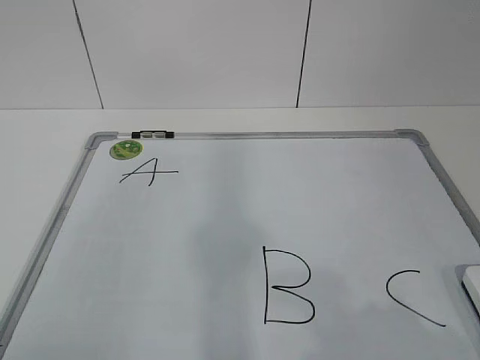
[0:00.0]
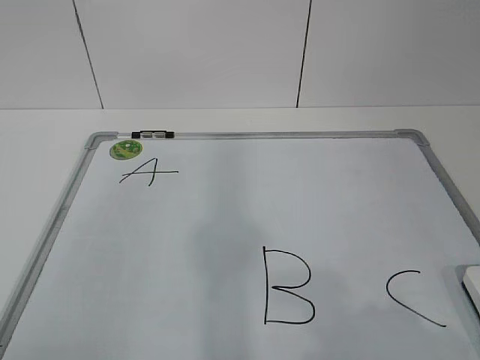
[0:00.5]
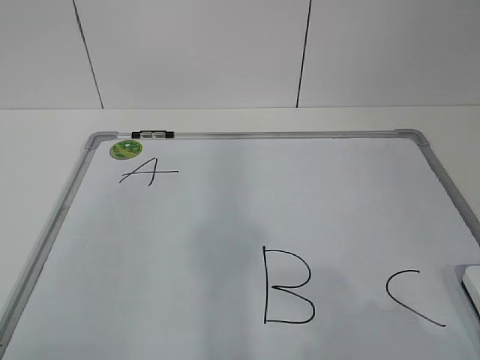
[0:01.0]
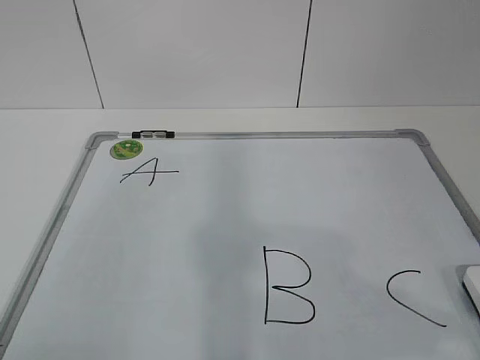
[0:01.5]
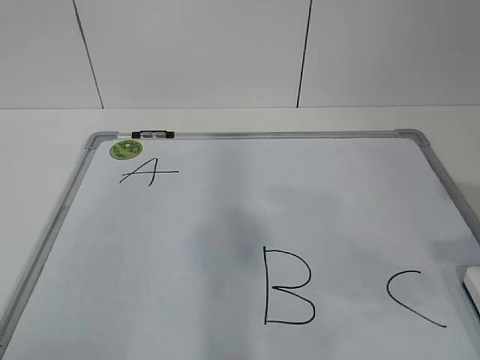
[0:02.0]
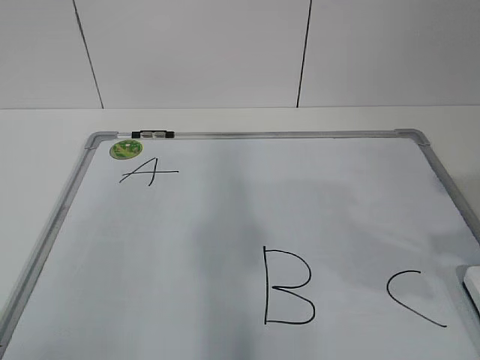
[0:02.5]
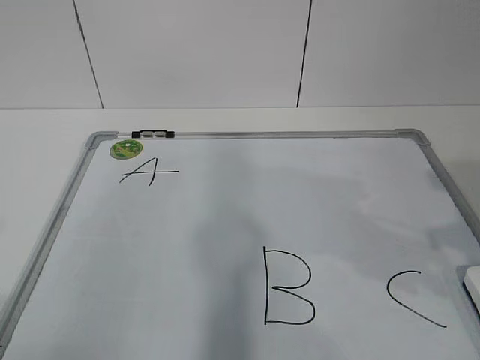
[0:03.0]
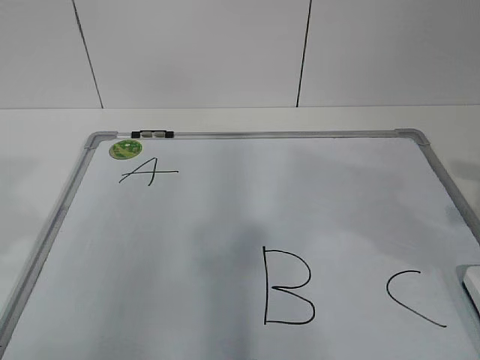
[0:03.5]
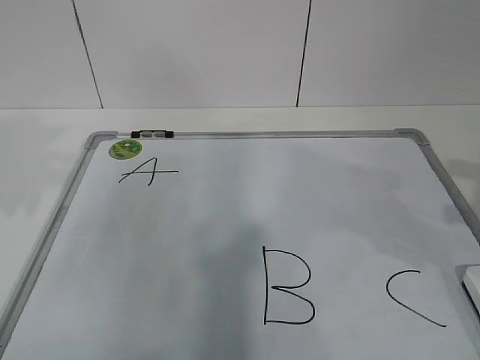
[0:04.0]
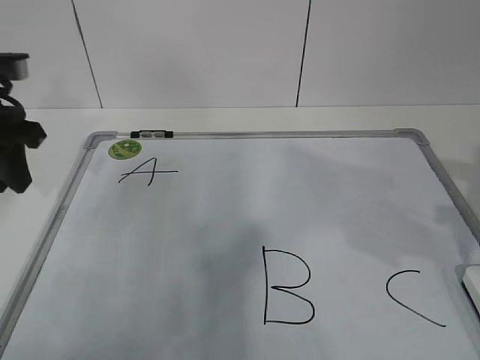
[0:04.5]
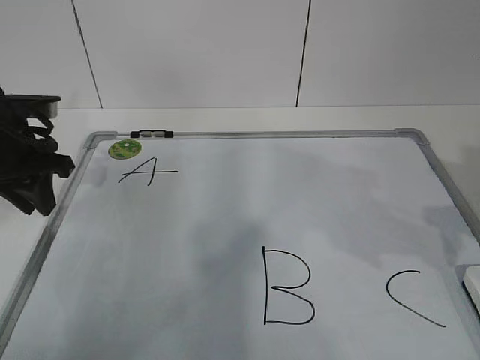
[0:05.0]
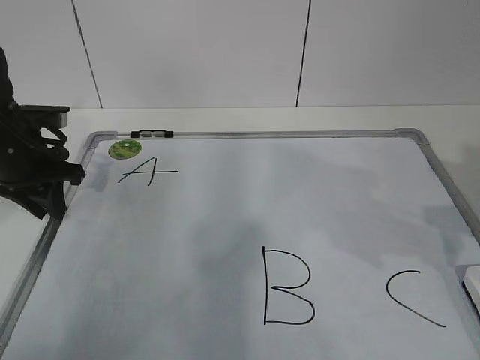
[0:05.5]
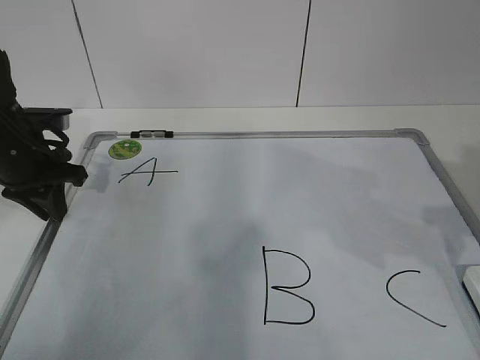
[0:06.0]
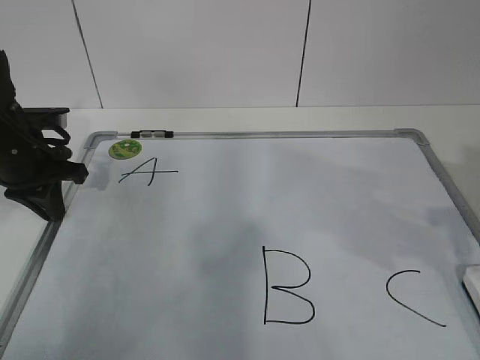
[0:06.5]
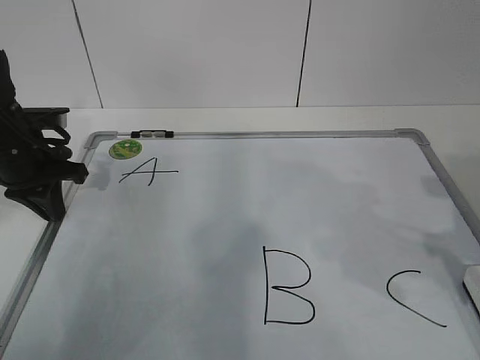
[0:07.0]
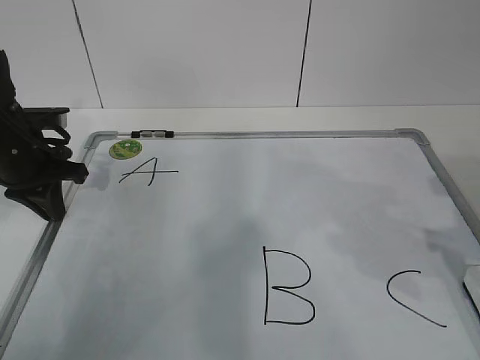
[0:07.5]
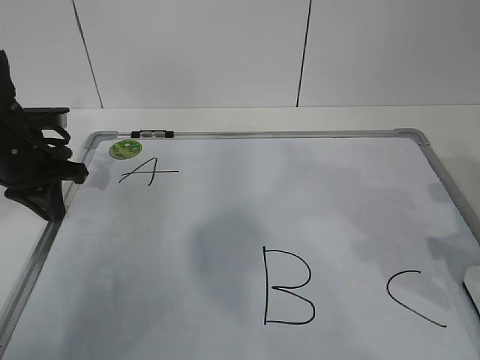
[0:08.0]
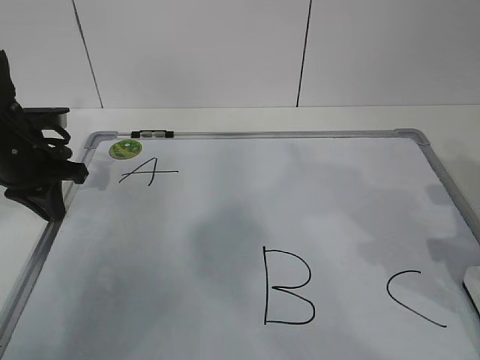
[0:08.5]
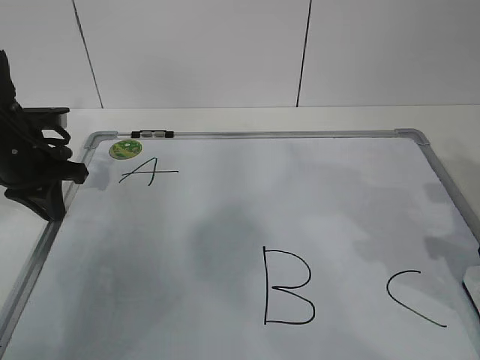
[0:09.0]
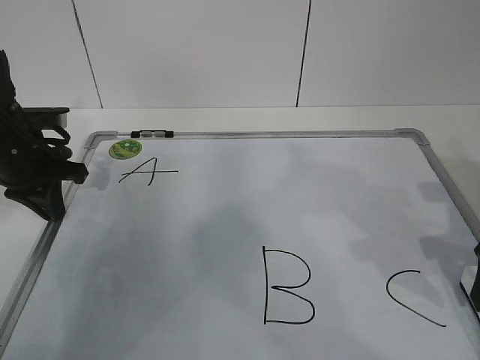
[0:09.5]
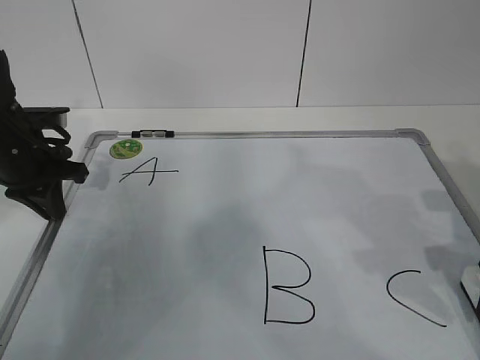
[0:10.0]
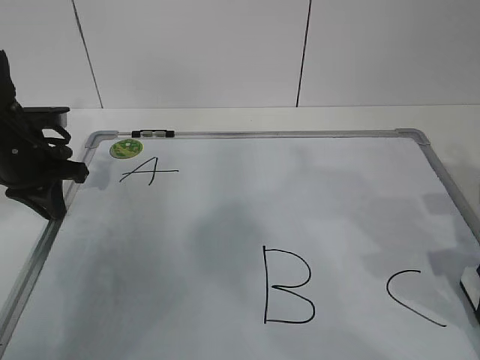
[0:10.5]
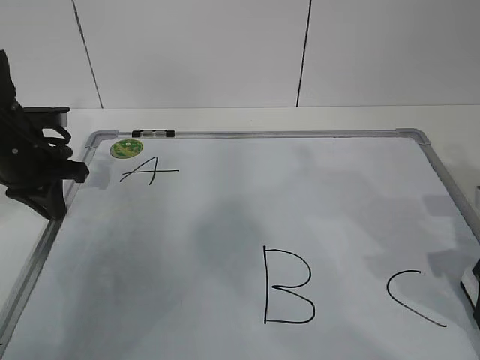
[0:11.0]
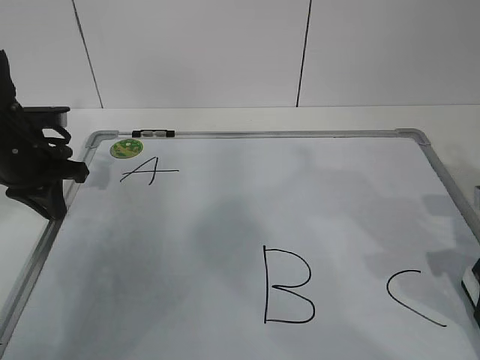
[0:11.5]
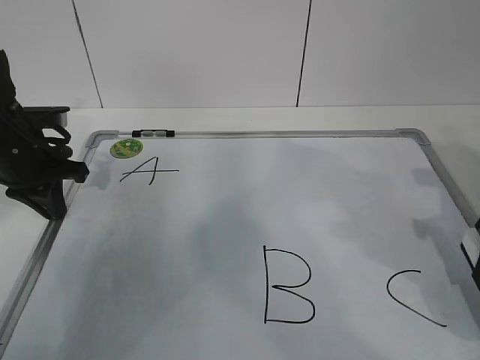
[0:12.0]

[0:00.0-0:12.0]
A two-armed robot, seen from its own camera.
Task of the whole recording: pick up the eraser on the blackboard and erase the letter "B".
Step, 0:00.0 to 0:05.0: Hold the drawing board steady with your left hand.
0:02.0 to 0:04.0: The left gripper heads forward, covering about 25 cm; the right gripper heads forward and to the right, covering approximately 10 cm.
0:04.0 to 0:06.0: The left gripper moves downward and forward, roughly 20 cm.
0:06.0 to 0:08.0: The left gripper closes, while the right gripper shifts some 5 cm downward.
0:10.0 to 0:12.0: The grippers stay close to where they were, moving slightly.

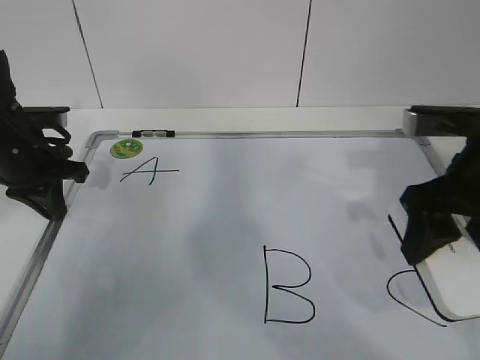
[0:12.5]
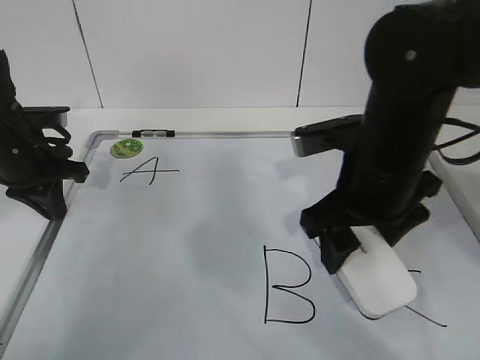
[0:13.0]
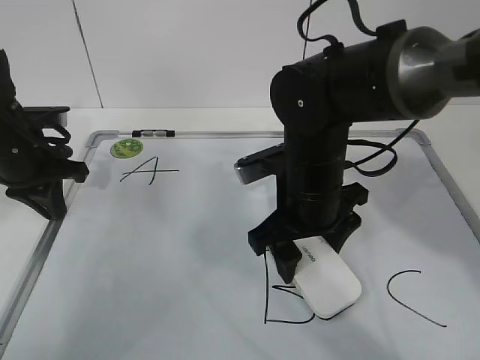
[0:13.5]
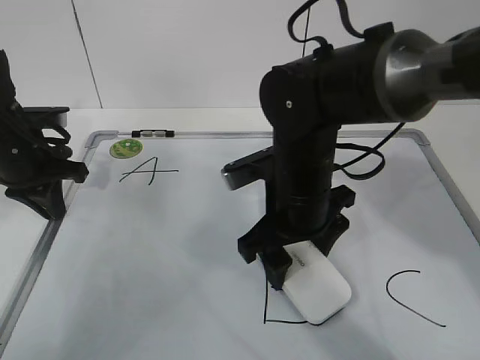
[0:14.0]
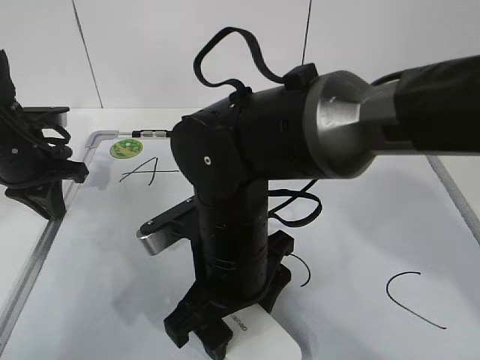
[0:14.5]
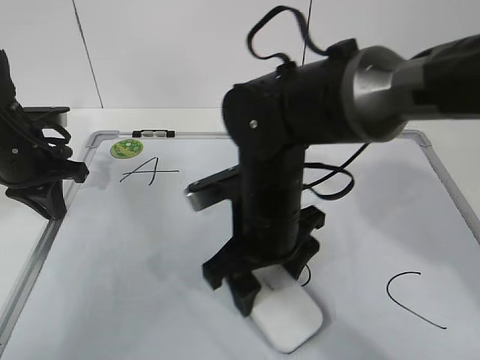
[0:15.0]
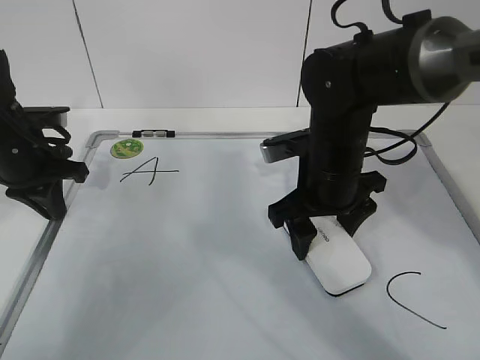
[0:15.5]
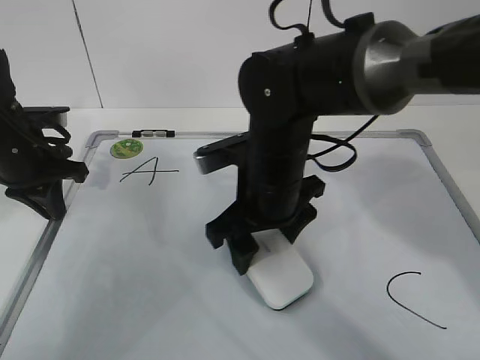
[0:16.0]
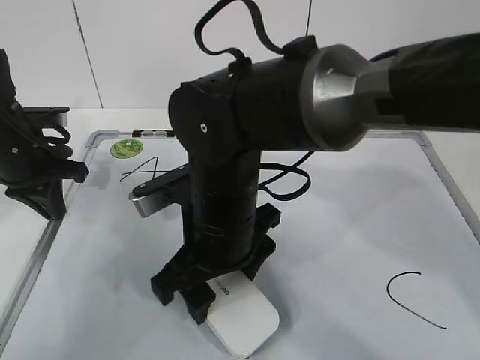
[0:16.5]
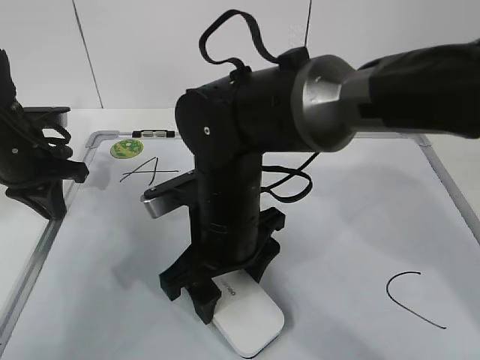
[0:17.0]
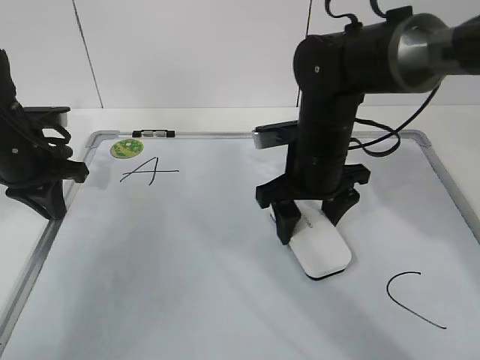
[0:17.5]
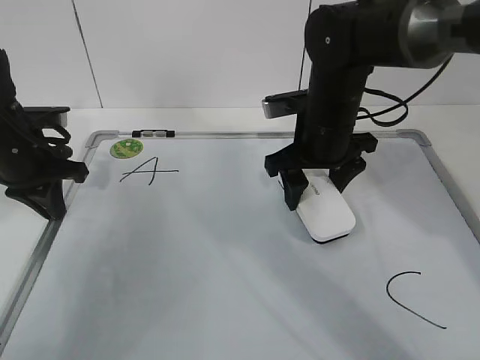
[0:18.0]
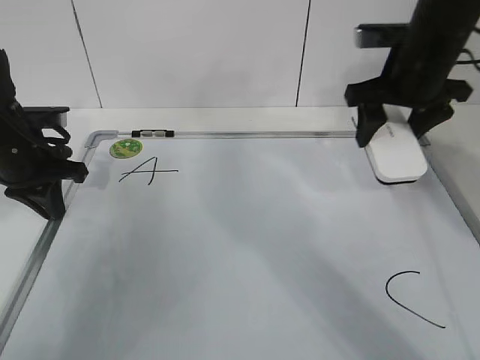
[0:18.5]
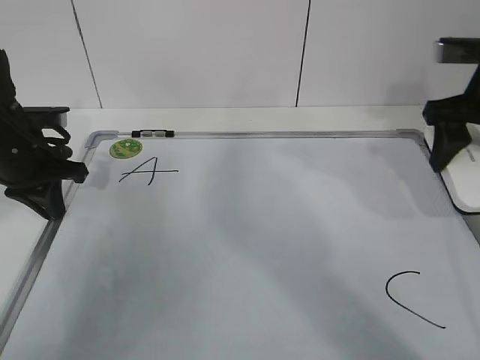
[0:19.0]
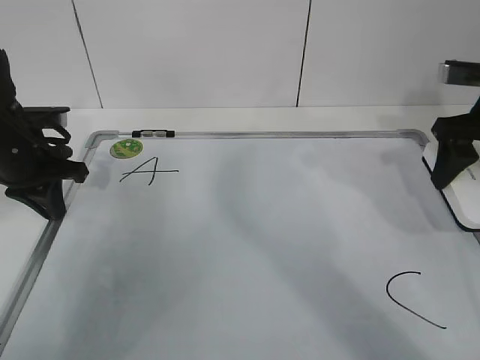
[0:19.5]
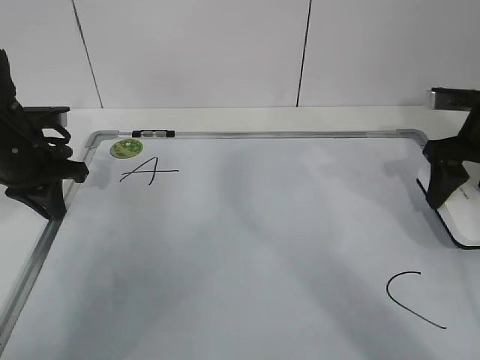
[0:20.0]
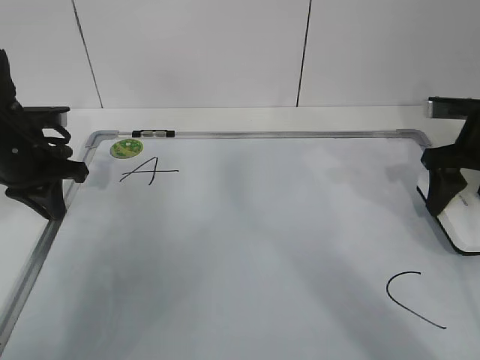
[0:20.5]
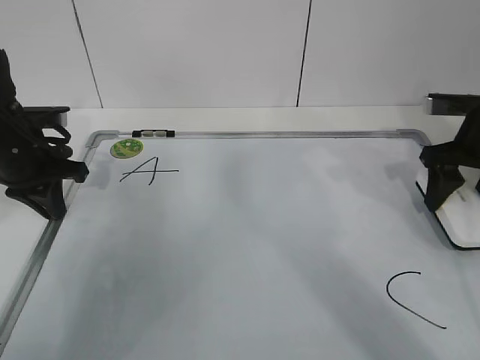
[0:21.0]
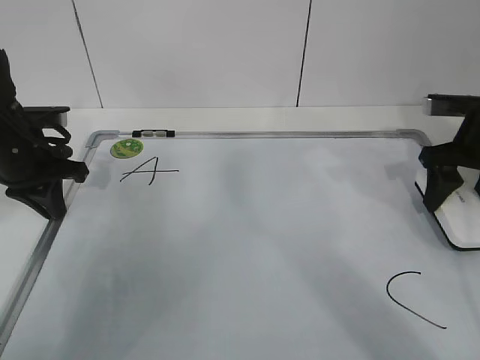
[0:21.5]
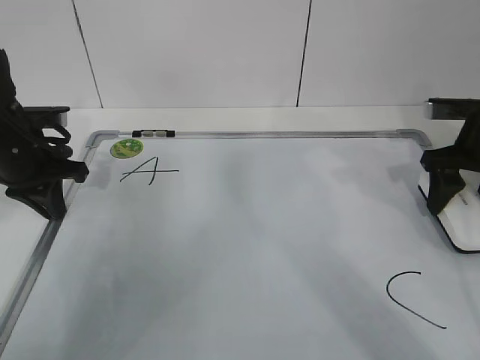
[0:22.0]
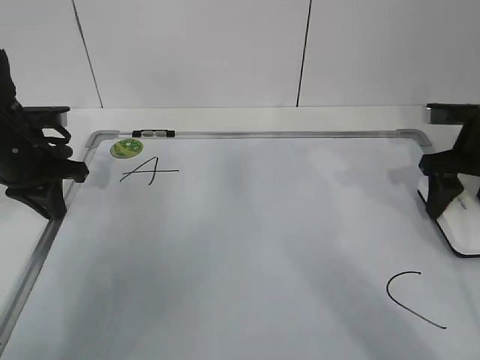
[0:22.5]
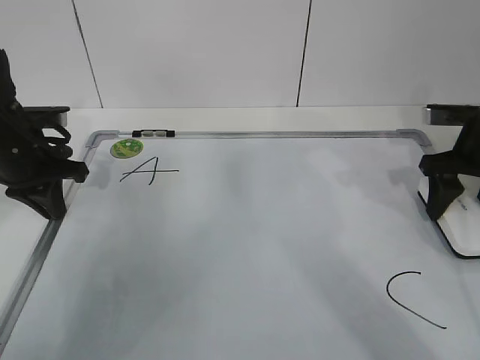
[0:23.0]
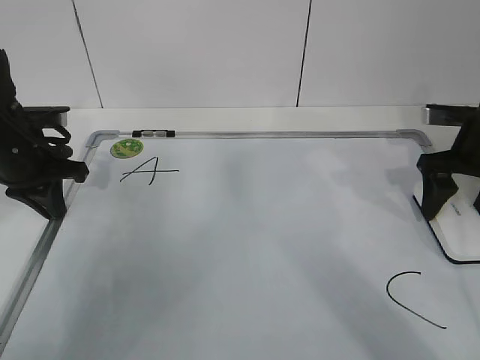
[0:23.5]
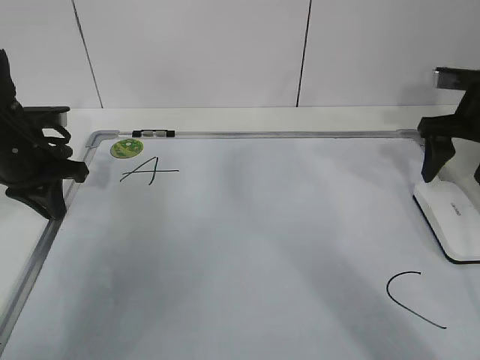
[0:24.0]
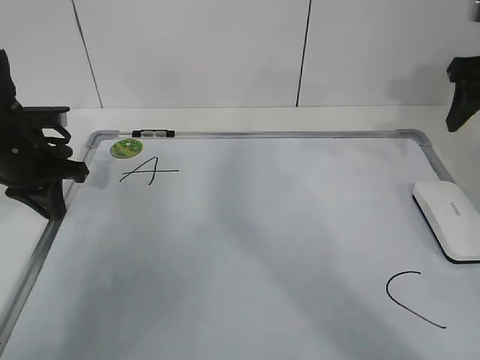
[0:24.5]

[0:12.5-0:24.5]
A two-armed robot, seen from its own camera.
Task of the whole recording: pick up the eraser on the blackboard and erase the letter "B".
Step, 0:12.5 to 0:14.5: Erase the letter B with your right hand.
Step, 0:15.0 to 0:19.5: Put down the eraser with your right hand.
0:12.5 to 0:14.5: The right gripper moves to the left, about 25 cm.
0:14.5 to 0:16.5: The right gripper reaches about 10 cm to the right, then returns.
0:16.5 to 0:18.5: The right gripper travels to the right and forward by some 25 cm.
0:18.5 to 0:20.5: The right gripper shifts some 10 cm to the right and downward.
0:20.5 to 0:22.5: Both grippers stay about where they are.
0:22.5 to 0:24.5: The right gripper travels upward by some 10 cm.

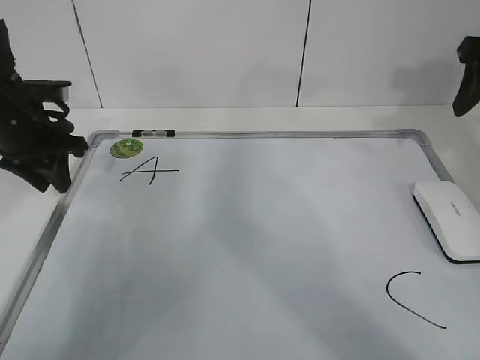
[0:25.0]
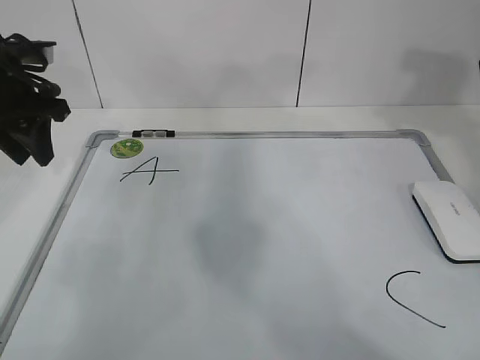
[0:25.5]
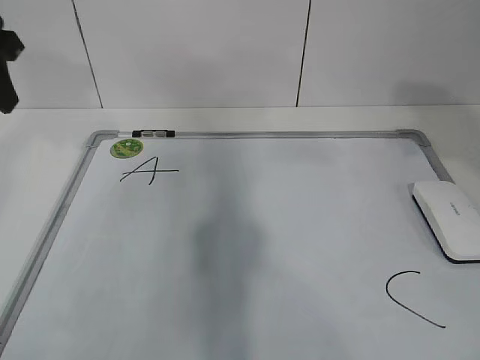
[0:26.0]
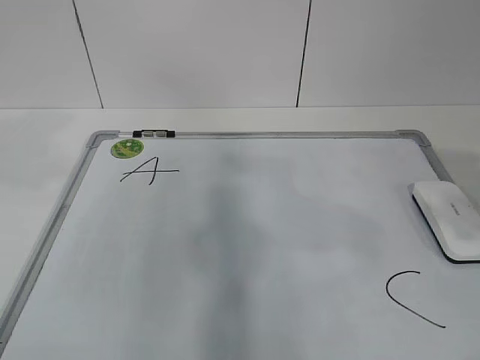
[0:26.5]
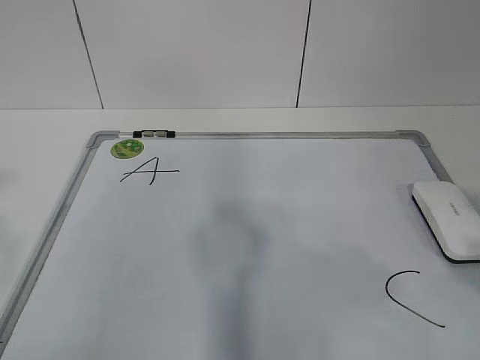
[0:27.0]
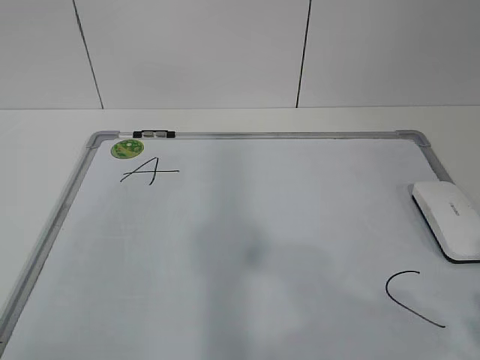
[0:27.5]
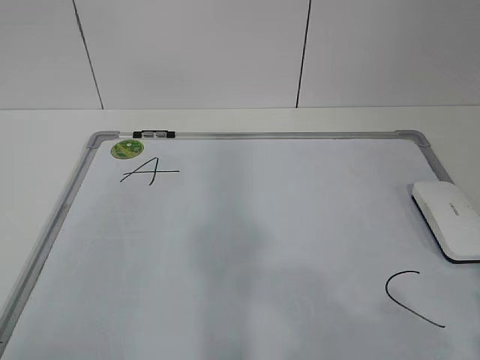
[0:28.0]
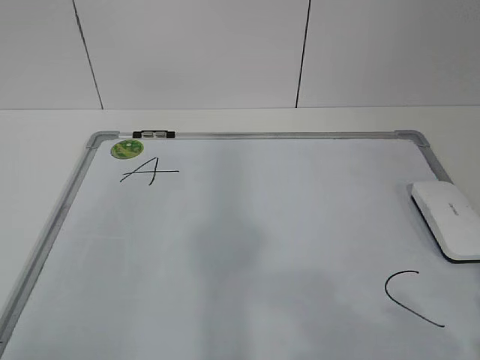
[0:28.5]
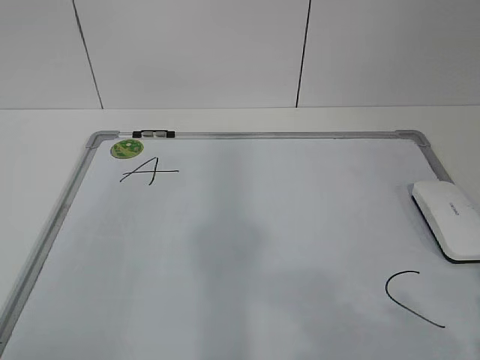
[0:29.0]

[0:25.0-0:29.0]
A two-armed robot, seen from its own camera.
Task of the whole recording: pick up the eraser on the blackboard and erase the letter "B".
0:25.0 to 0:27.0: The left gripper heads backward and upward, covering roughly 40 cm. Meanwhile the right gripper is displaced backward by roughly 35 cm.
0:27.0 to 0:29.0: The left gripper shifts about 10 cm downward and backward. The right gripper is displaced downward by some 5 cm.
